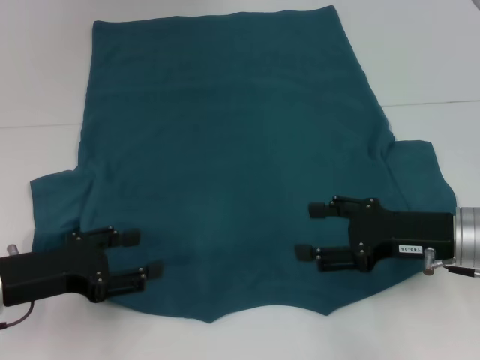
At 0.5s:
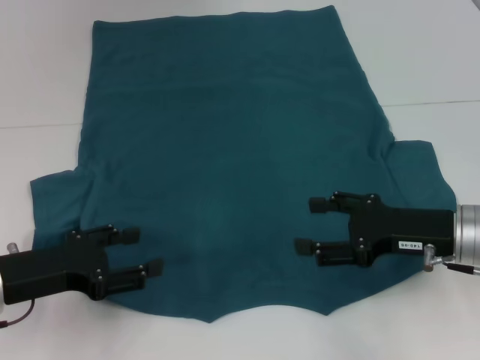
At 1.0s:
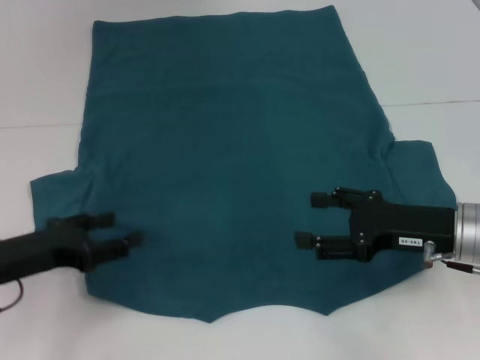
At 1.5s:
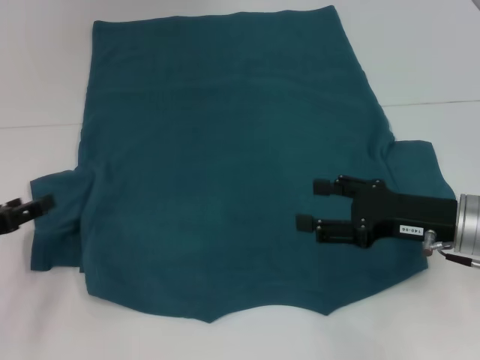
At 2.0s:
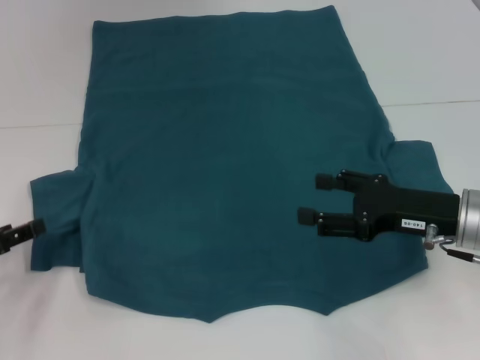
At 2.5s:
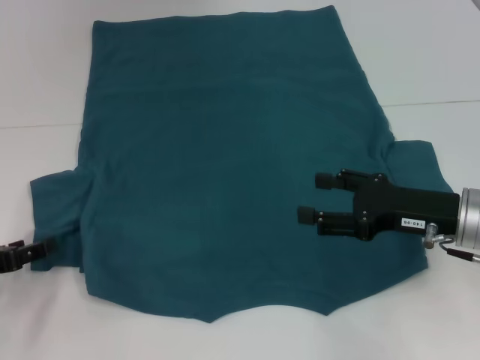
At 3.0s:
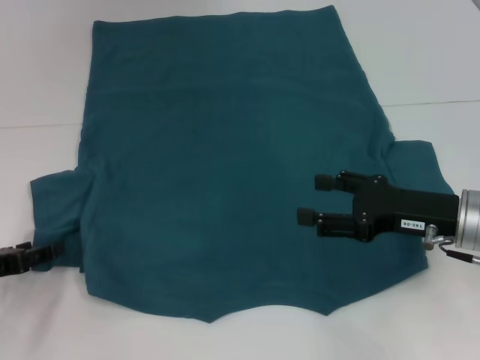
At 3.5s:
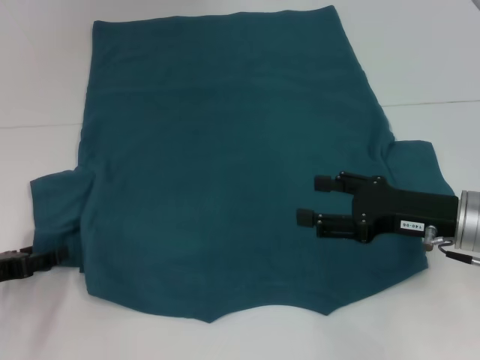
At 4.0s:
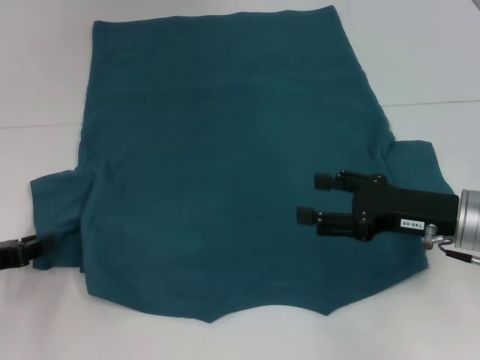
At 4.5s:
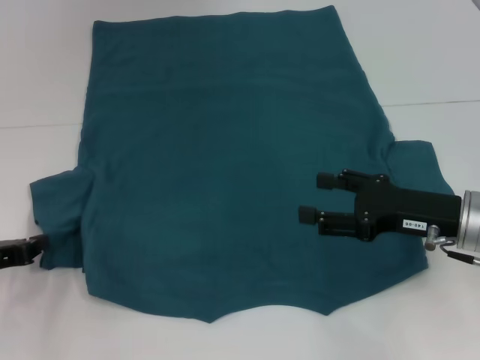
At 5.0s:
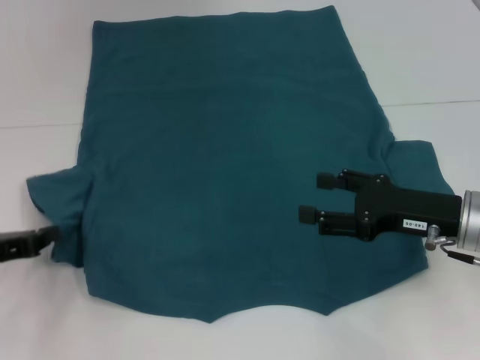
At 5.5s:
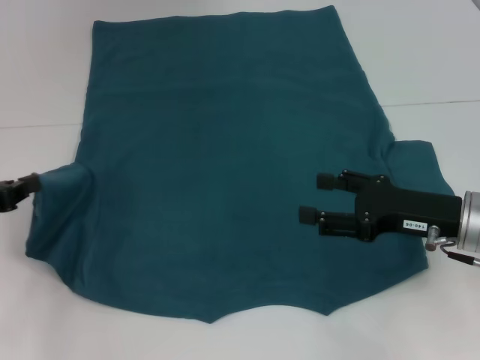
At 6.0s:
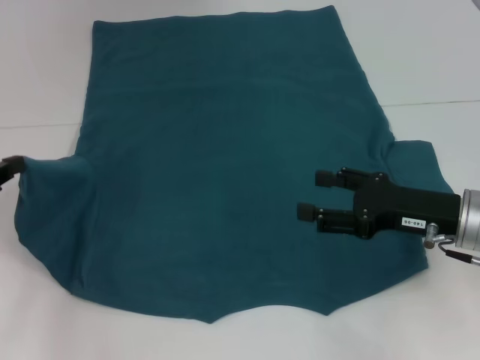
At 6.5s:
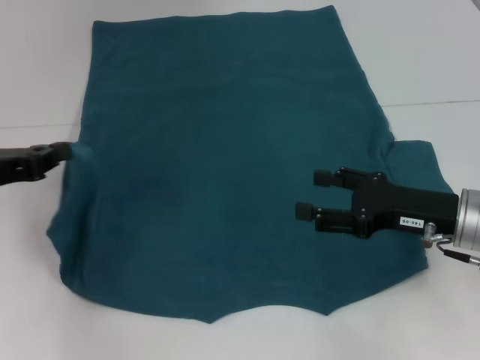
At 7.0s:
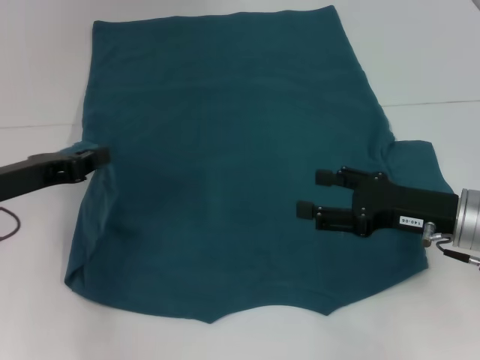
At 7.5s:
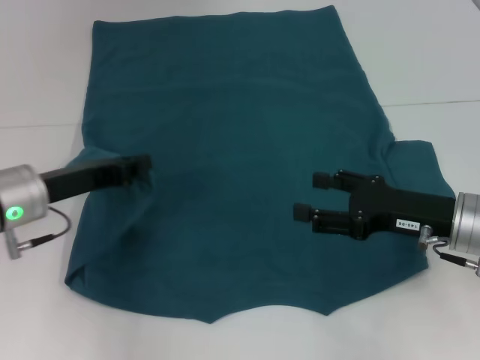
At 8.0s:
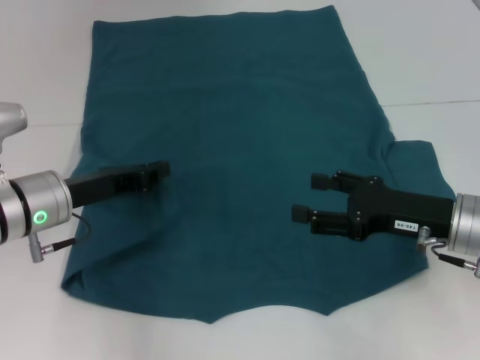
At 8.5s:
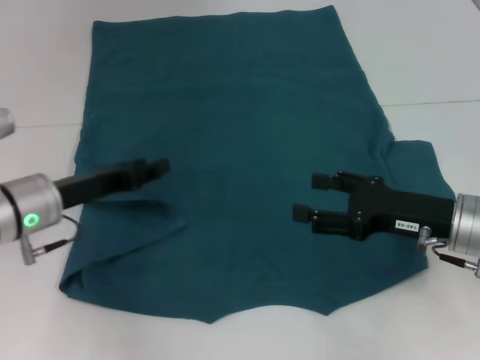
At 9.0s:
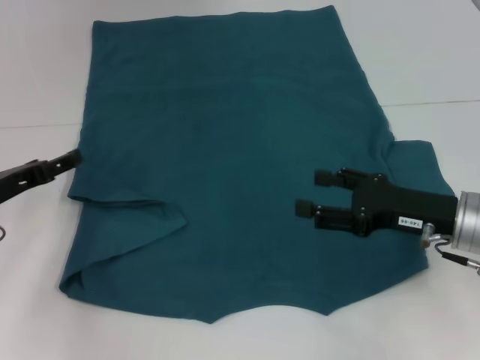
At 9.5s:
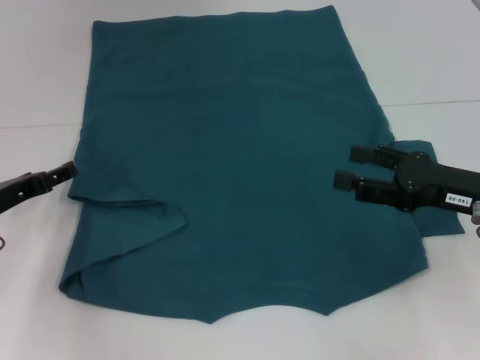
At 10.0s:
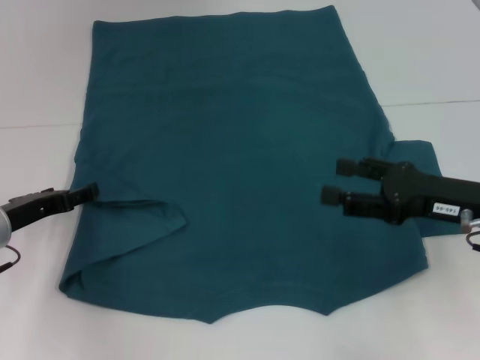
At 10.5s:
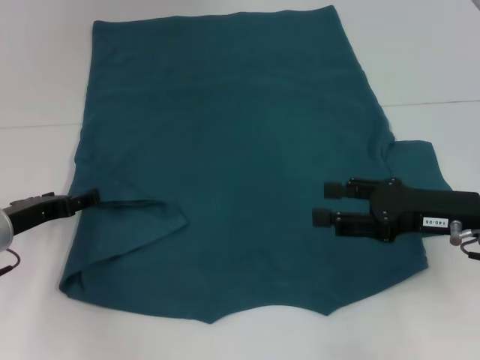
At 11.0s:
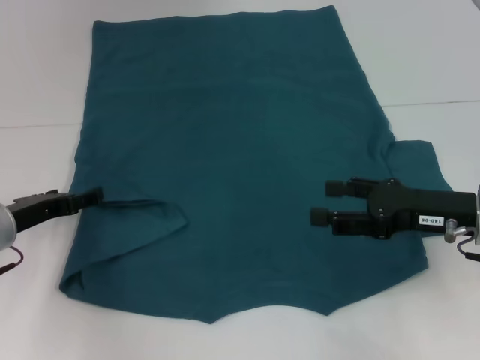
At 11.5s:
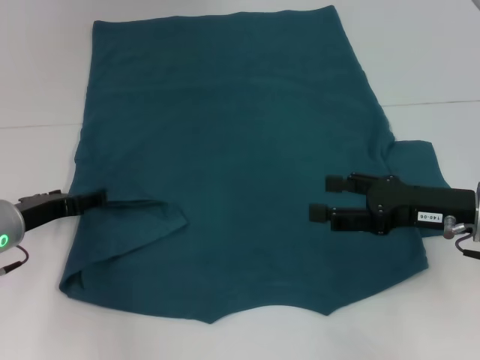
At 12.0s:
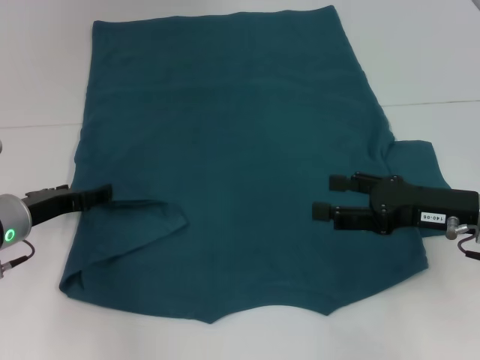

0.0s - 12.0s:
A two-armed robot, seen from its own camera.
0.0s - 2.0s: The left gripper heads to the left, covering some 10 cm.
2.0s - 4.0s: There are only small adjustments of the grippers.
4.0s - 6.0s: The left gripper travels upward by some 10 cm, and closes up.
6.0s - 8.0s: The left gripper shifts some 15 cm to the right.
8.0s - 10.0s: The left gripper goes roughly 5 cm to the left, and opens up.
10.0s - 12.0s: There are only small adjustments of the grippers.

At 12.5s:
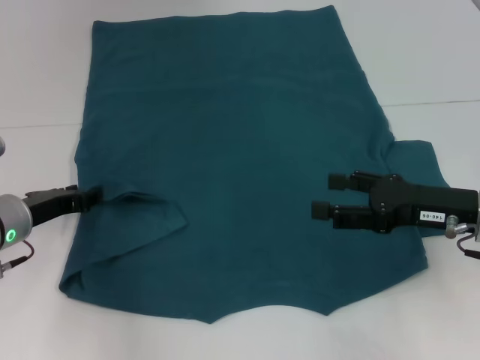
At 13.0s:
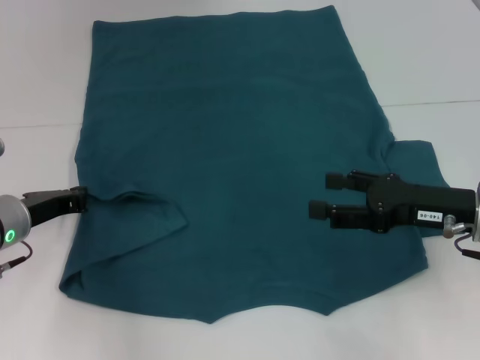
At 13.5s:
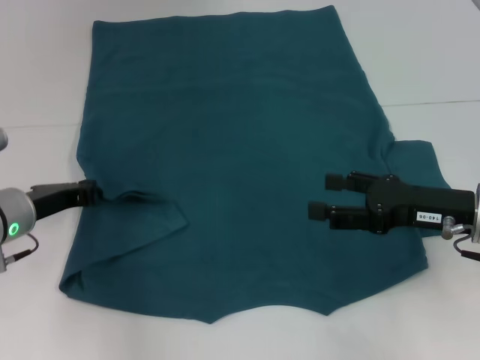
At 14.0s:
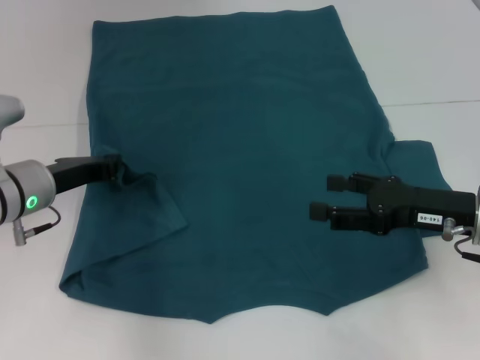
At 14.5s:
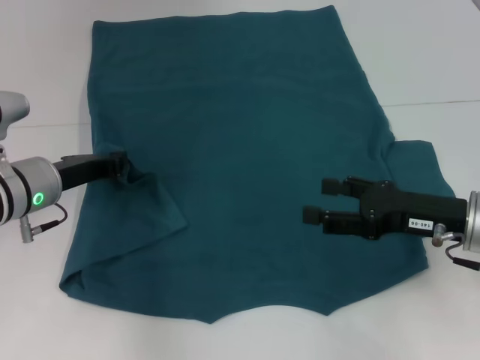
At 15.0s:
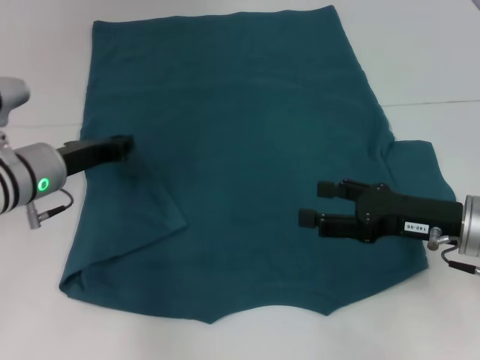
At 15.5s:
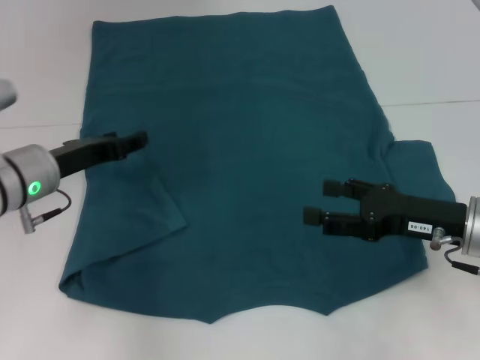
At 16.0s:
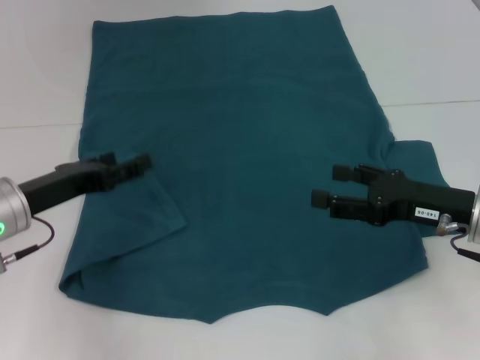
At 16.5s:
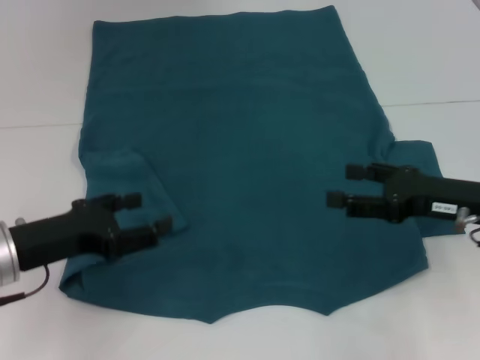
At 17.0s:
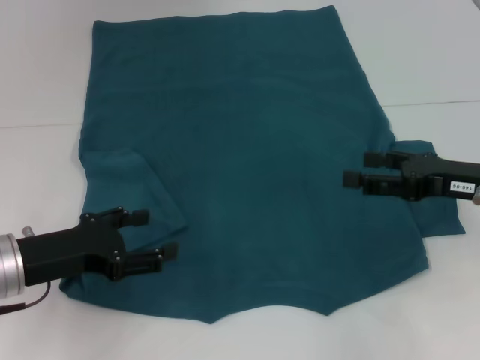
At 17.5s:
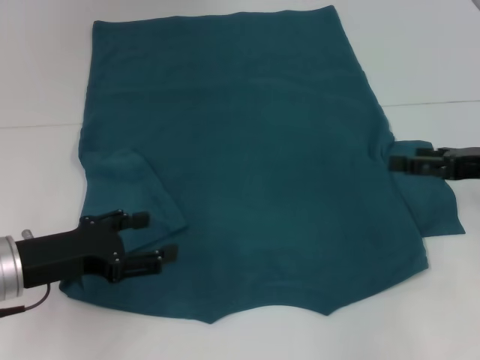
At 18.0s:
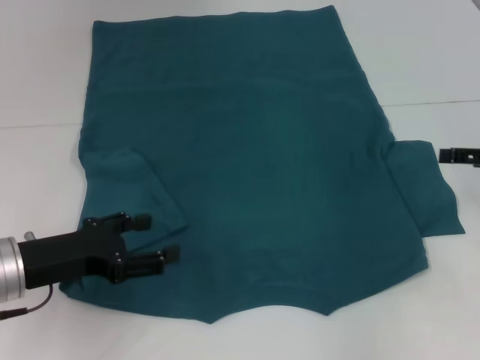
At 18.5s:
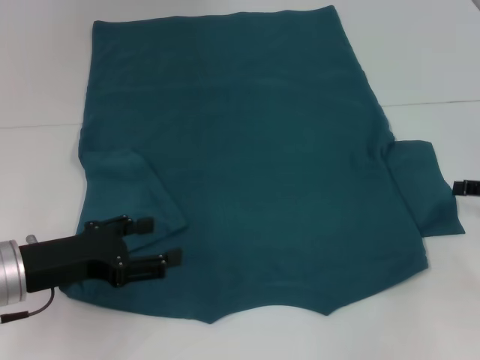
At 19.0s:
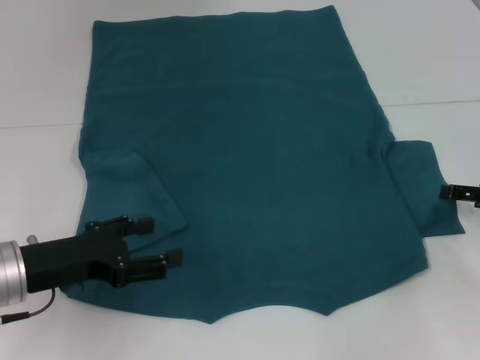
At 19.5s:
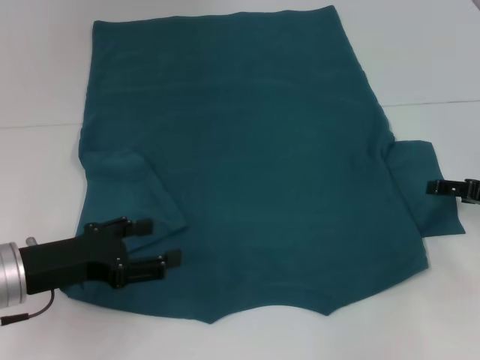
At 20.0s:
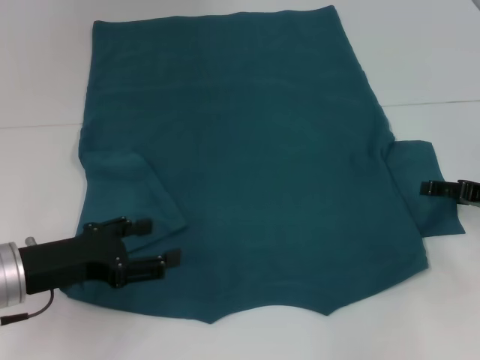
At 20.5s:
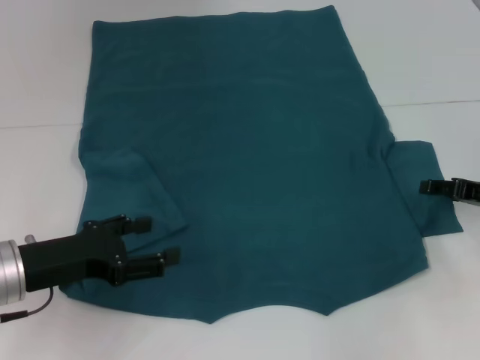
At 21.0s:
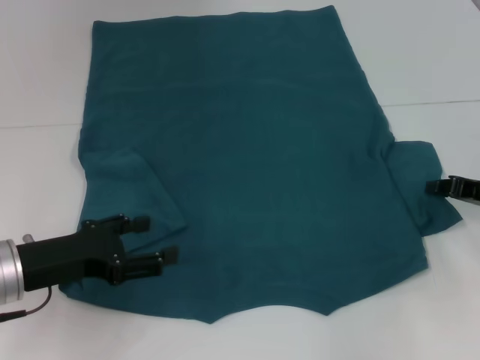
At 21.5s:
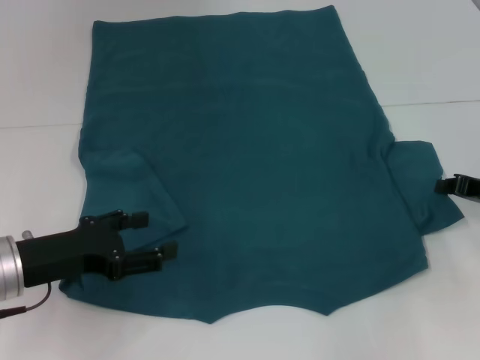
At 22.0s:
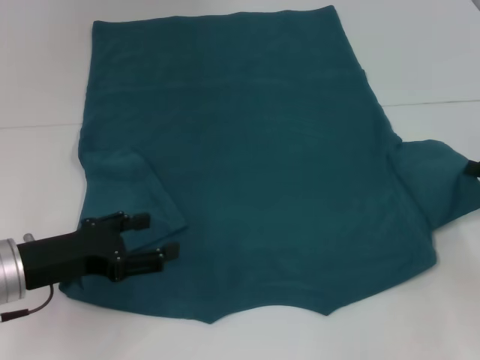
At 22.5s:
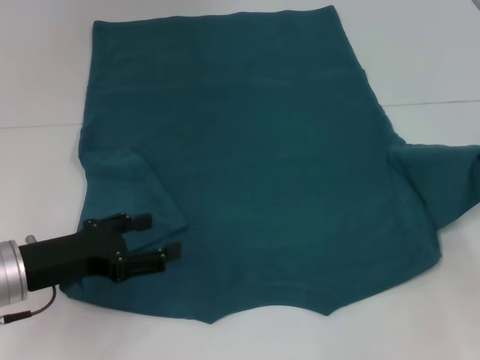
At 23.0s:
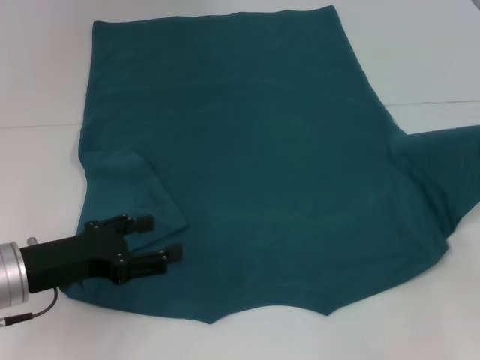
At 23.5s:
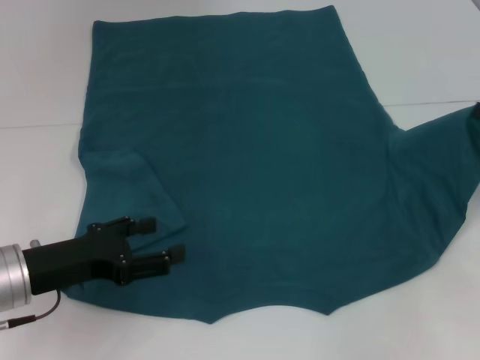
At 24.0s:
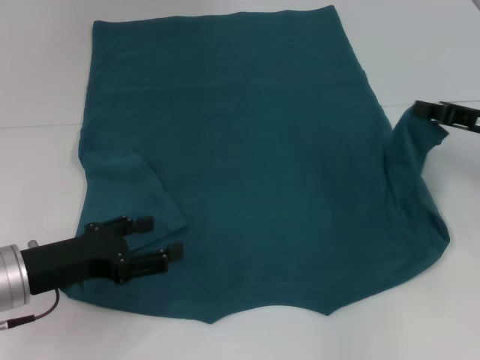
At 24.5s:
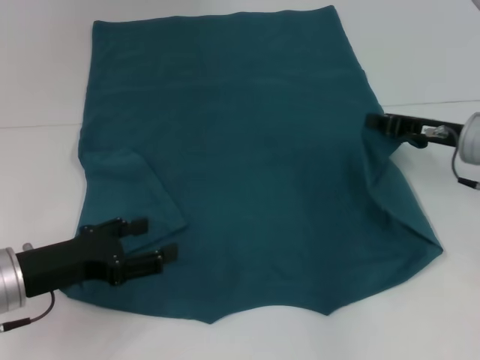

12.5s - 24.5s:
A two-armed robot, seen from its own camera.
Step, 12.5s - 15.5s: Fold the bottom left sleeve with your left hand.
12.5s - 14.5s: The left gripper closes its fingers.
14.5s - 16.5s: The left gripper shifts approximately 10 cm backward, and opens.
16.5s - 18.5s: The right gripper moves to the right, roughly 10 cm.
18.5s - 20.5s: The right gripper ends up approximately 5 cm from where it was.
20.5s - 22.5s: The right gripper closes up.
22.5s - 24.5s: The right gripper goes approximately 15 cm to the left and forward.

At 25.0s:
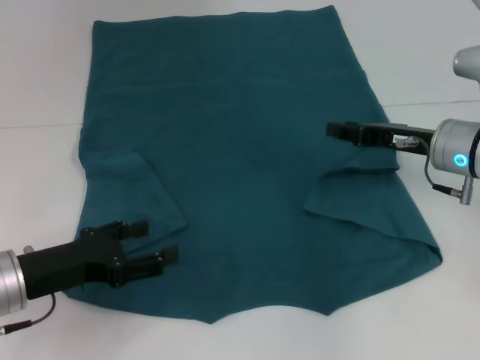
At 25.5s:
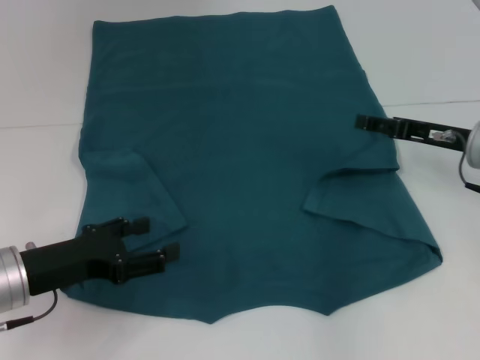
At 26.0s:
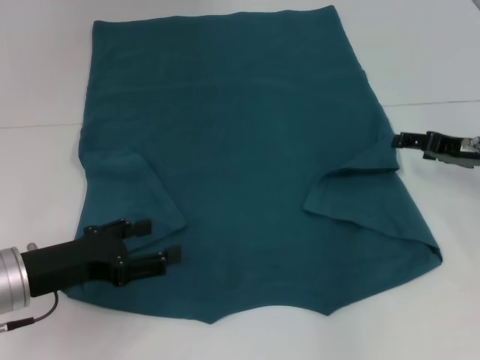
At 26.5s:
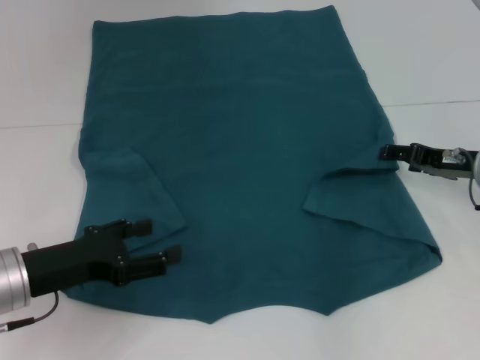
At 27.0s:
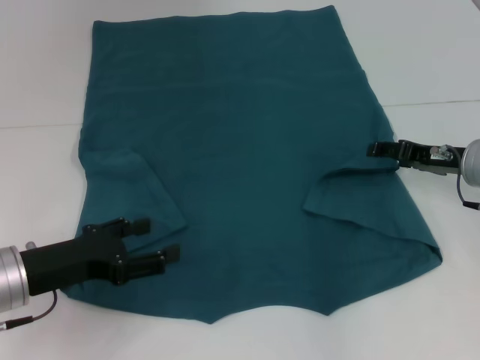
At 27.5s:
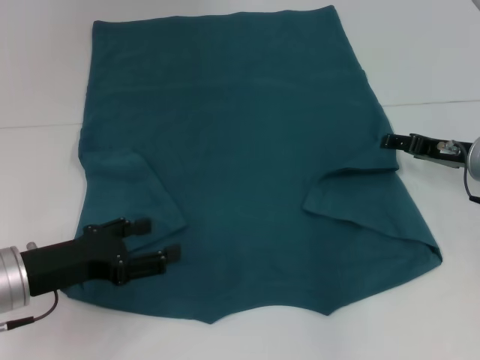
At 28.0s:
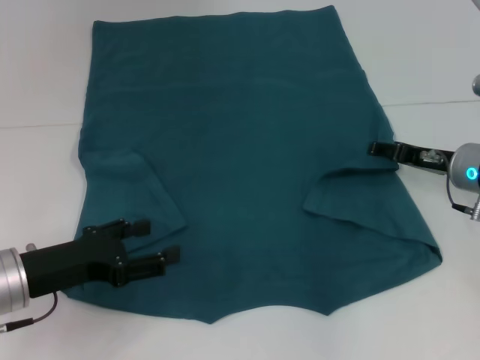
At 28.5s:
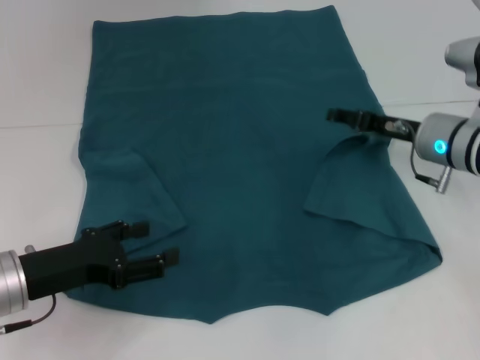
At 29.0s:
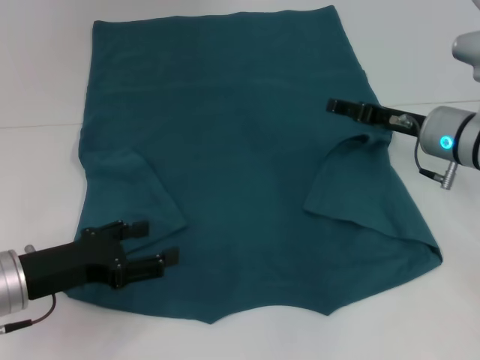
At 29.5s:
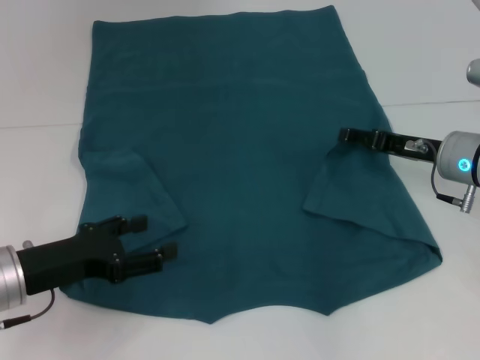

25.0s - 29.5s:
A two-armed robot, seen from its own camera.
25.0s - 27.0s: The right gripper opens up.
